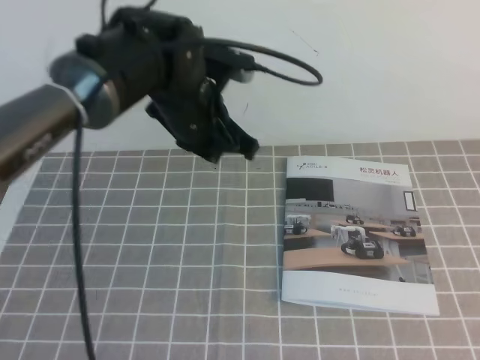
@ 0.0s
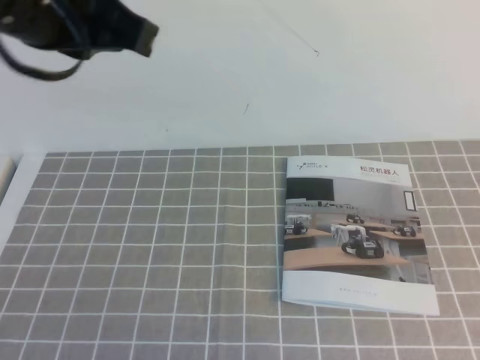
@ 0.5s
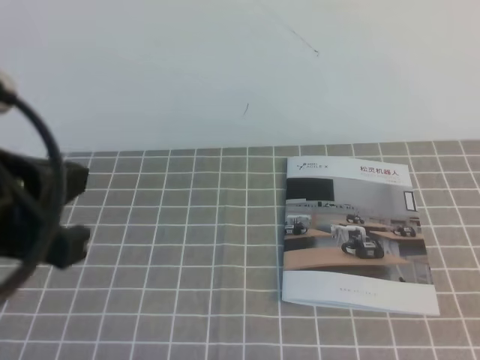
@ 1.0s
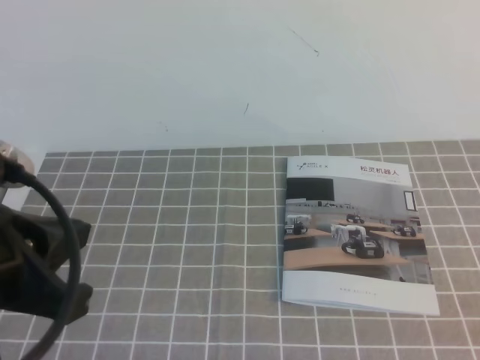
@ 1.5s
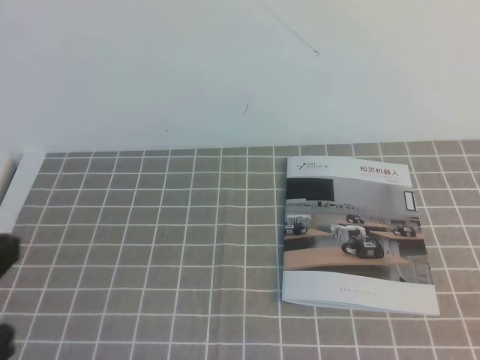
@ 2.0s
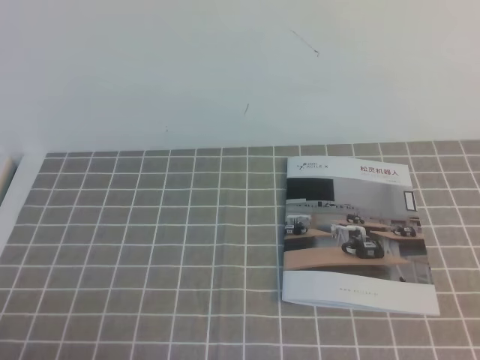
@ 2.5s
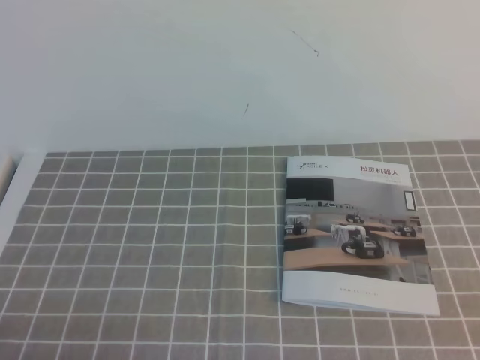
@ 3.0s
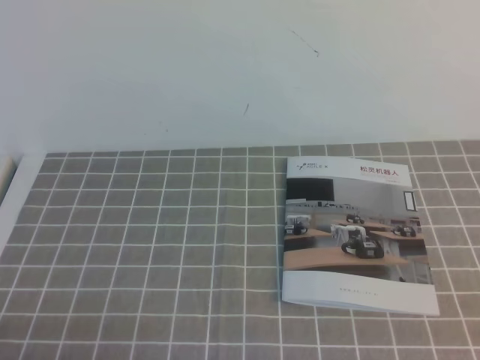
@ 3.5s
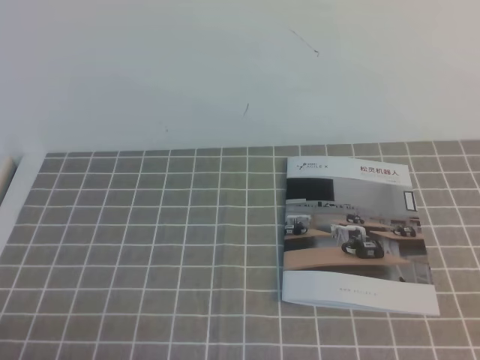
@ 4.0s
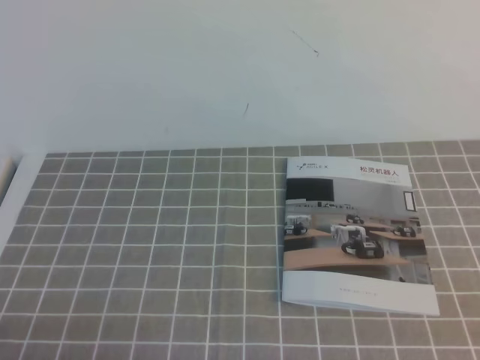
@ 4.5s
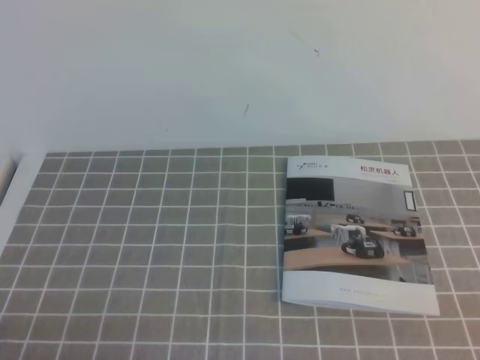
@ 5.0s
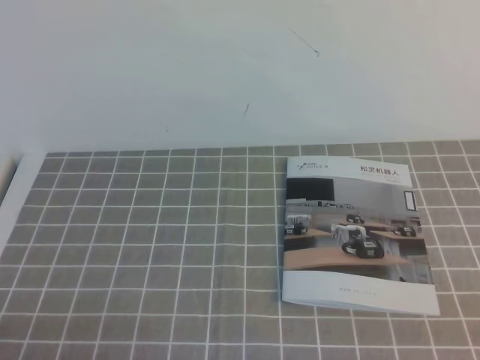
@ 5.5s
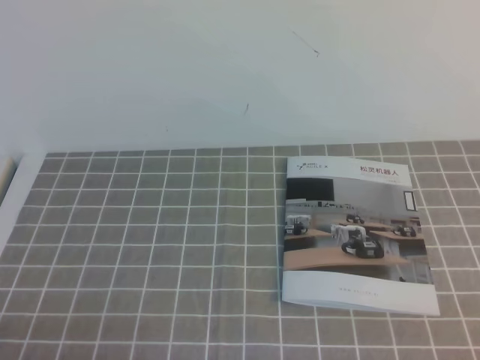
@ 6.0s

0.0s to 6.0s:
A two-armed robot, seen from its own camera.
Task of the whole recording: on the grey tablecloth, hold the book with one hand and close it with the other.
Step, 0.0s to 6.0s: Close the open book.
0.0s to 2.0s: The right gripper goes approximately 20 cm backward and downward. Meanwhile the left gripper shifts roughly 35 cm backward and to the left.
2.0s to 4.0s: The left gripper shifts about 15 cm downward.
